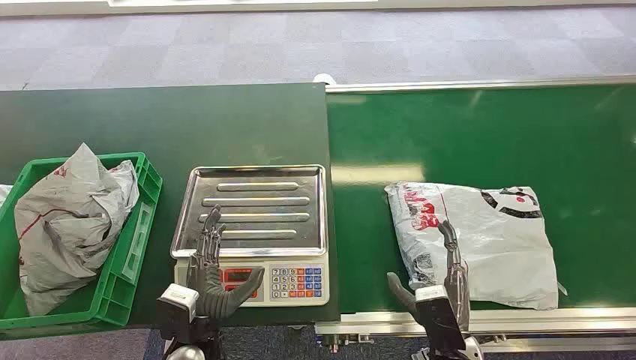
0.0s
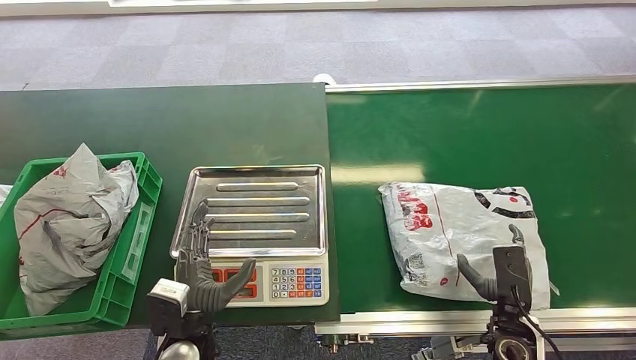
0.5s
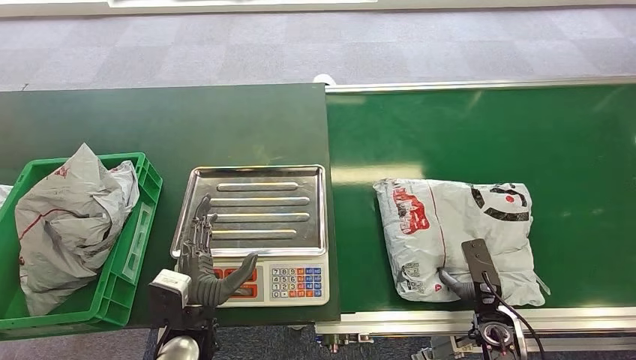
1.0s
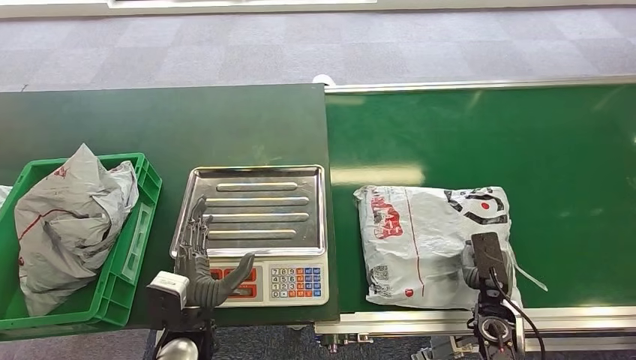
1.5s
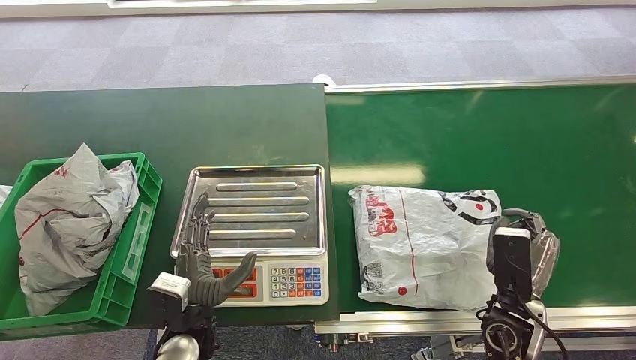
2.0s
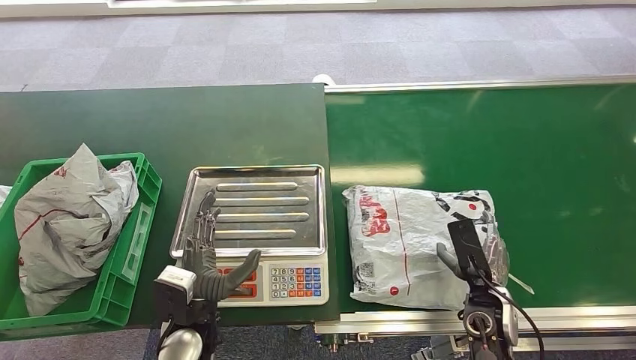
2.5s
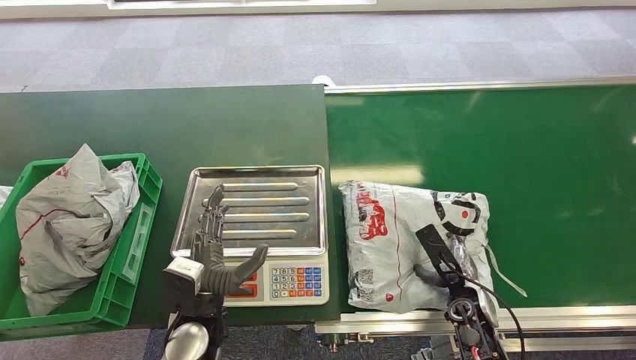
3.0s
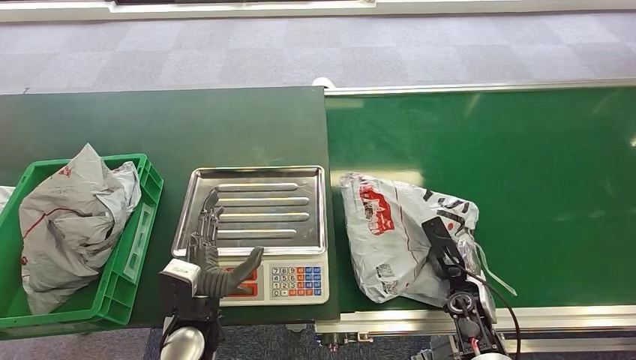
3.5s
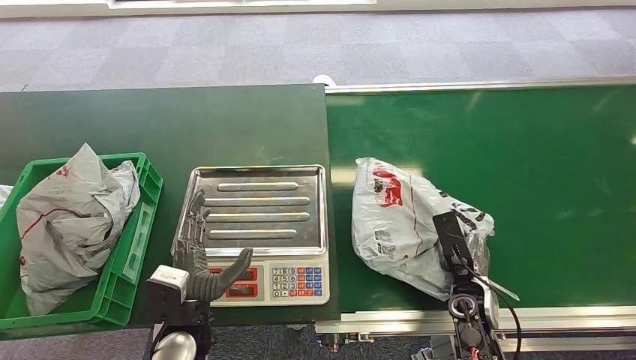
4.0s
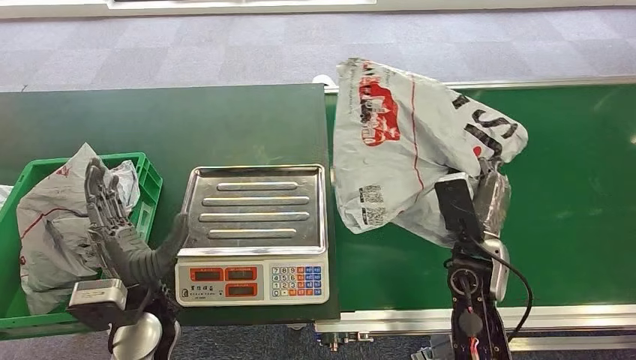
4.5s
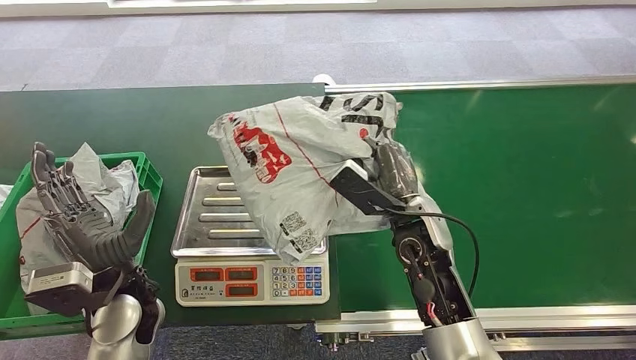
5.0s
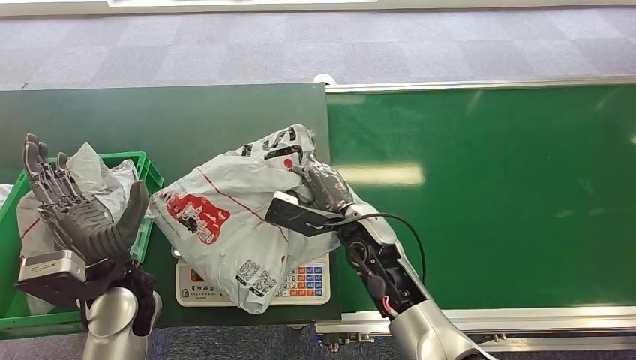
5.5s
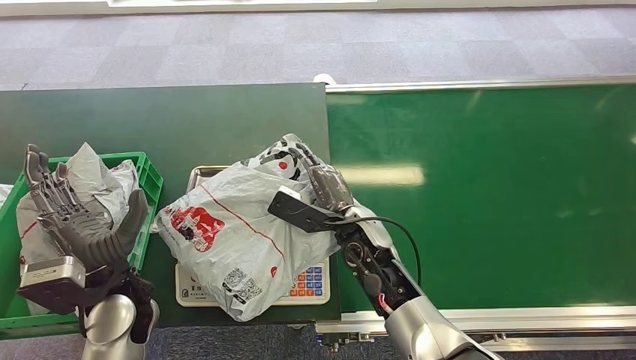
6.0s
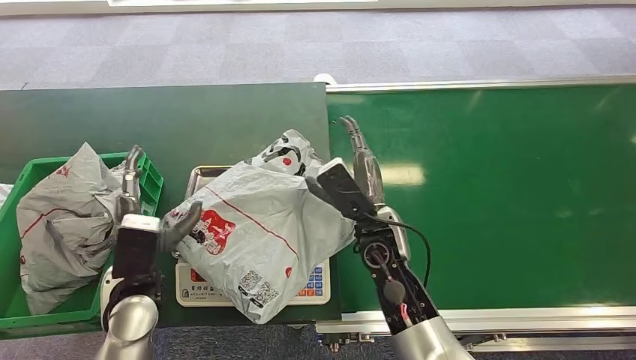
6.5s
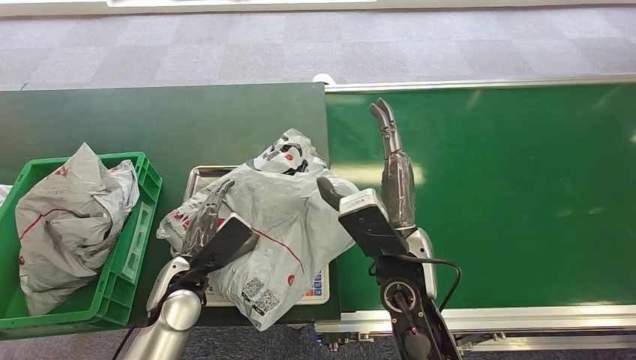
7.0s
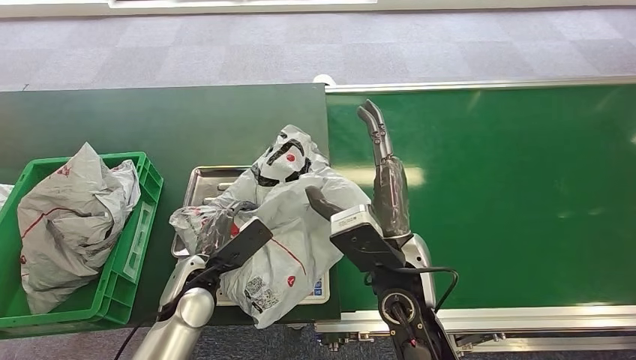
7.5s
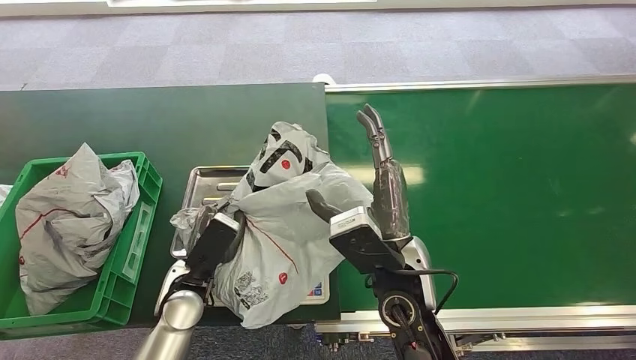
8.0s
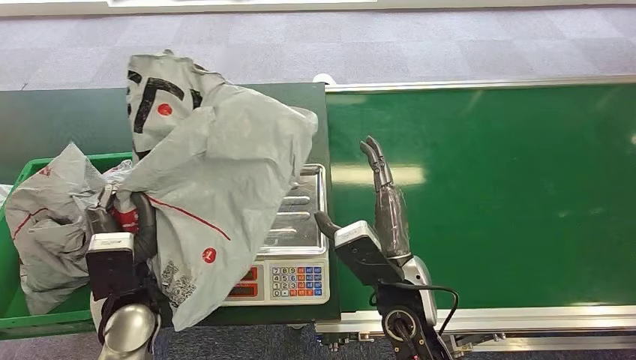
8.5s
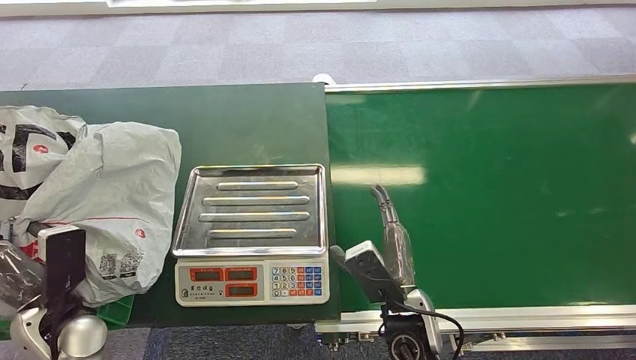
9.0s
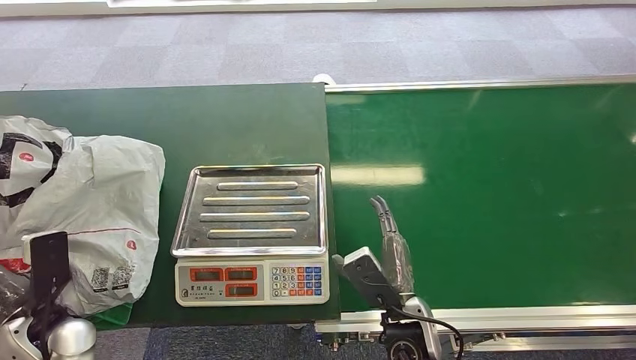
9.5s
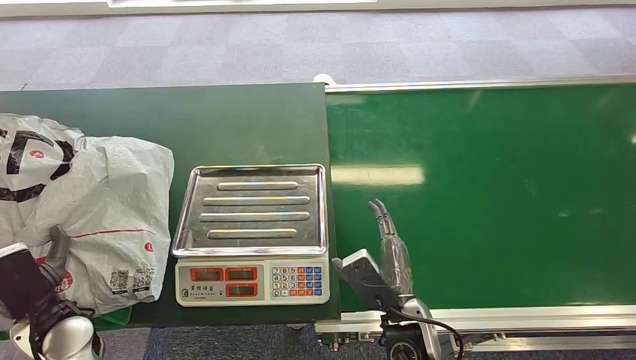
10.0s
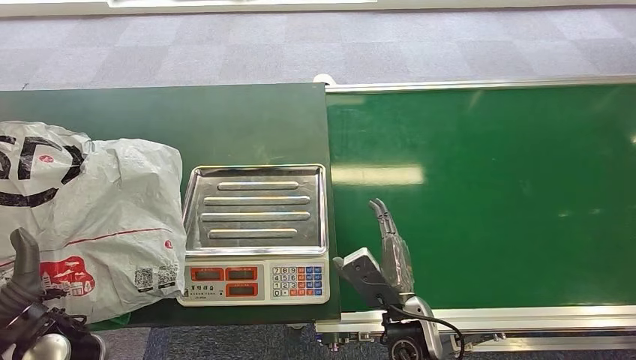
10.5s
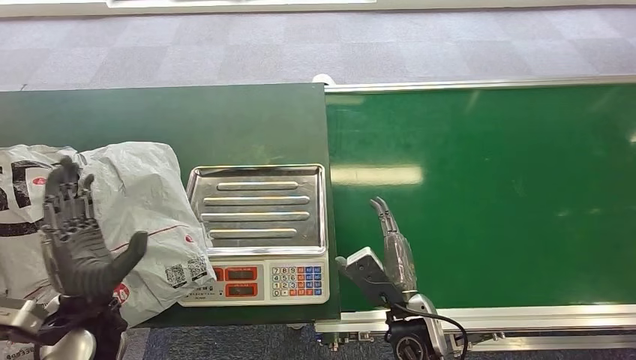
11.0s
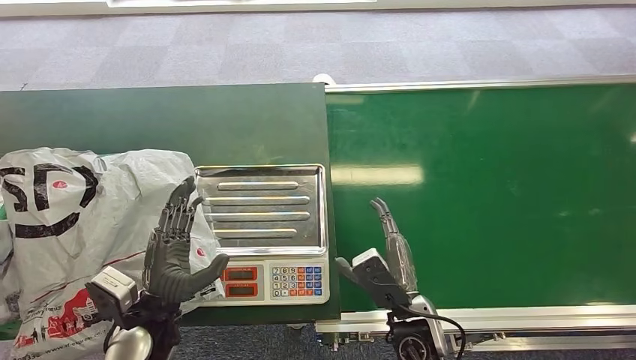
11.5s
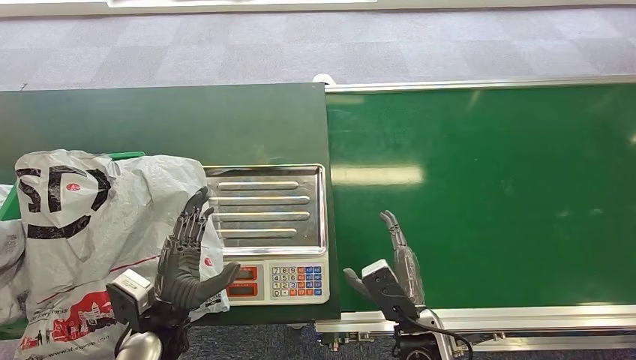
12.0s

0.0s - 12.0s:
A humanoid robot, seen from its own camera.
Task of the whole recording: Weigh the package on the weighing device and place it in the left basket.
Step, 0.0s - 5.0s: Pick up the package from the conveyor belt.
Step, 5.5s - 7.0s: Place the package onto the inbound machine.
Step, 7.5s - 8.5s: Pick up the package from the inbound machine.
Step, 9.0s - 12.0s: Place the package into the parcel locker.
2.0s - 4.0s: The right hand moves roughly 5 cm.
6.0s - 8.0s: The right hand is displaced backward and upward by approximately 10 cm; the left hand goes some 10 cm to the right and downward.
10.0s - 12.0s: The left hand moves to the right, roughly 15 cm.
